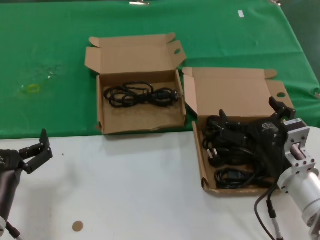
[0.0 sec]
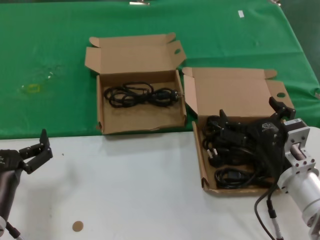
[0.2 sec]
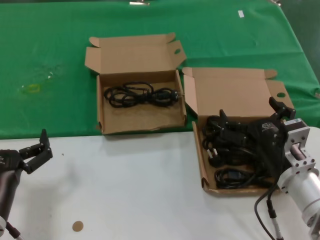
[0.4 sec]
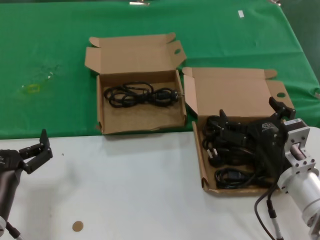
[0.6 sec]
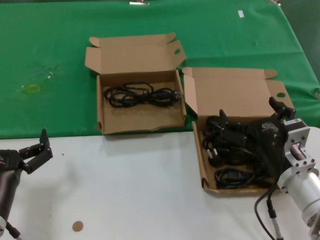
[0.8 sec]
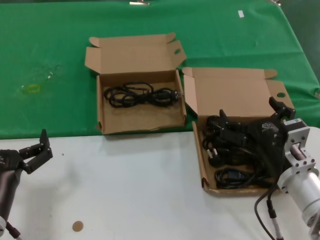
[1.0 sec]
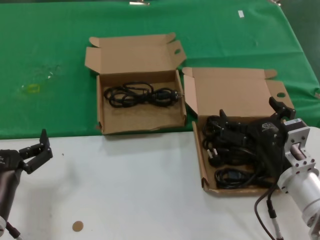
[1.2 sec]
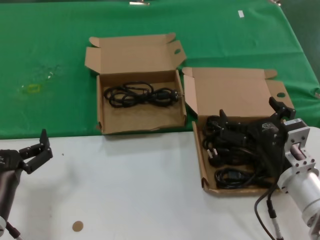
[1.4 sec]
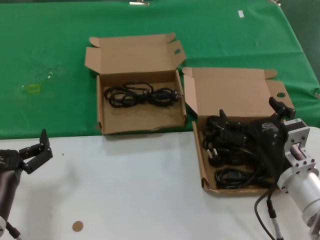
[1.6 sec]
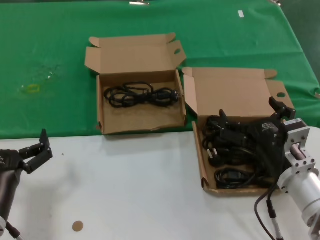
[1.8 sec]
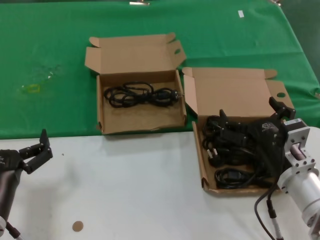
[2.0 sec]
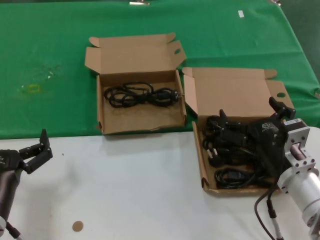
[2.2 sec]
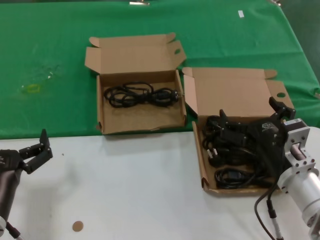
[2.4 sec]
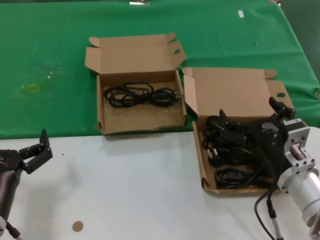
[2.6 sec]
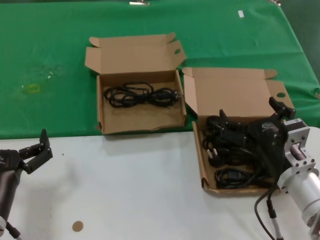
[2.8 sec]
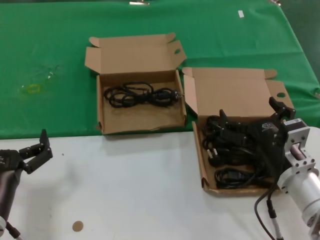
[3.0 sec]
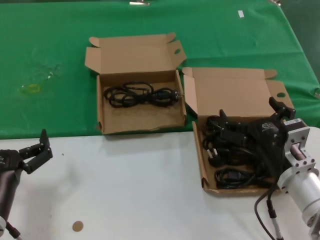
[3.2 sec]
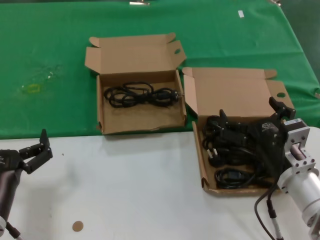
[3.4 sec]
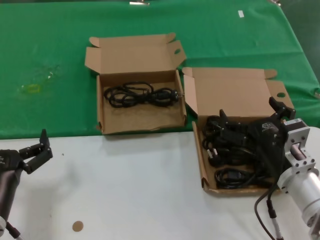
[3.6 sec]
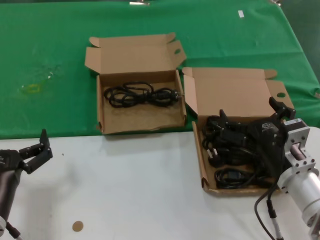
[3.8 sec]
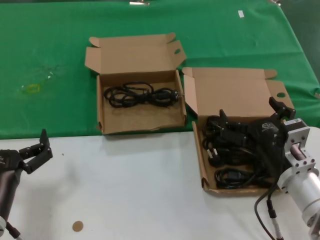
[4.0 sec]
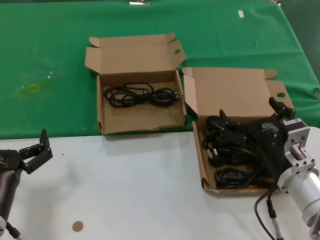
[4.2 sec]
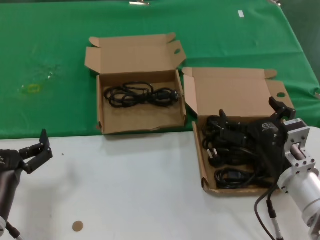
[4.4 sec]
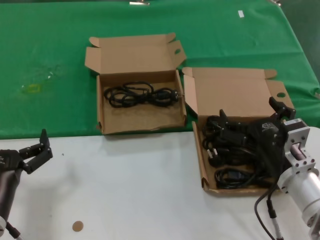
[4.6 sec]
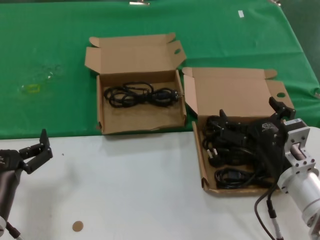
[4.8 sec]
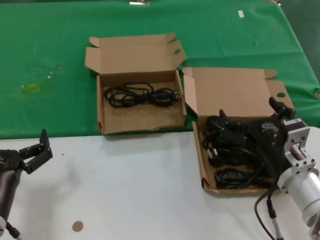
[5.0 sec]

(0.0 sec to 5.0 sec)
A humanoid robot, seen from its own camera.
Task of the whole recording: take the parts from the box containing them and put them into an empty box.
0.0 sec - 5.0 sec: The two hands keep their place.

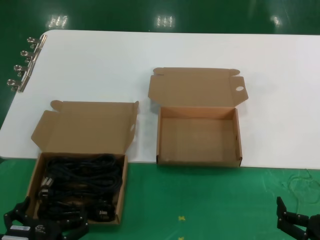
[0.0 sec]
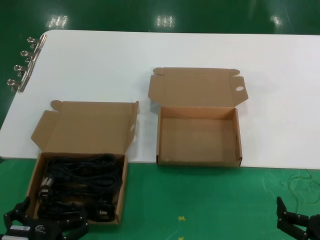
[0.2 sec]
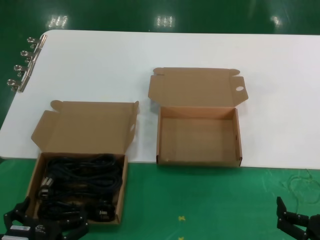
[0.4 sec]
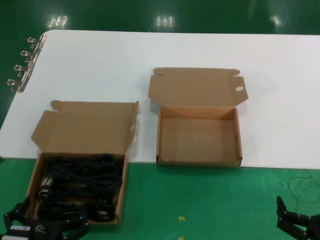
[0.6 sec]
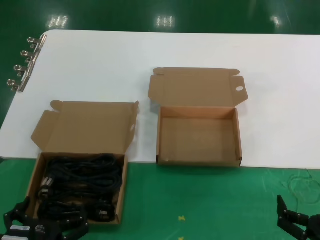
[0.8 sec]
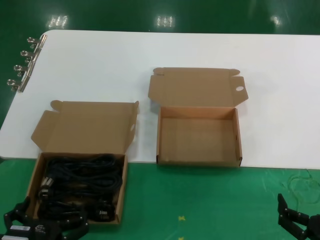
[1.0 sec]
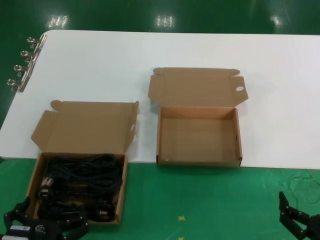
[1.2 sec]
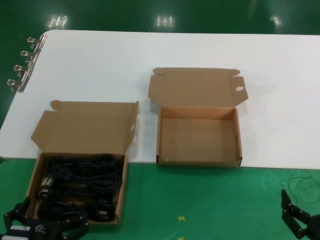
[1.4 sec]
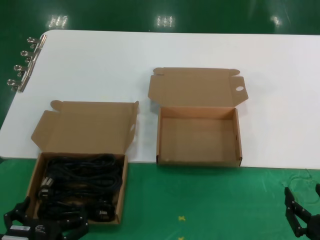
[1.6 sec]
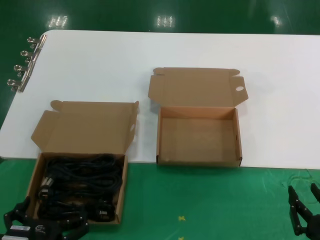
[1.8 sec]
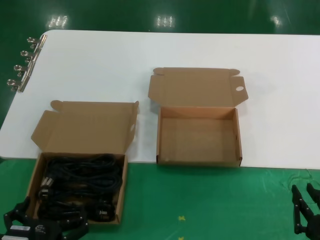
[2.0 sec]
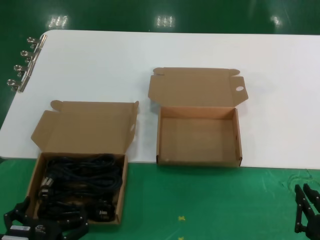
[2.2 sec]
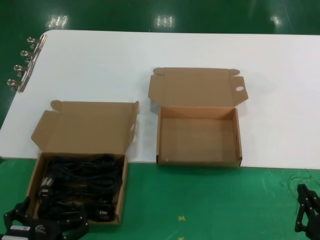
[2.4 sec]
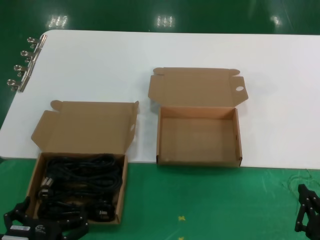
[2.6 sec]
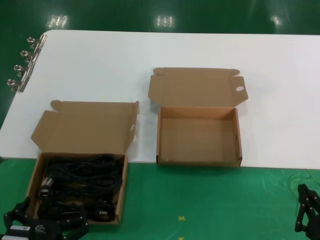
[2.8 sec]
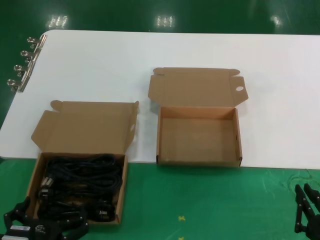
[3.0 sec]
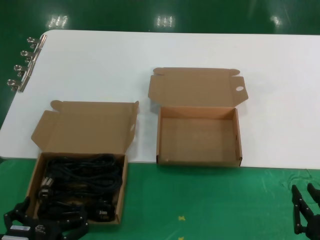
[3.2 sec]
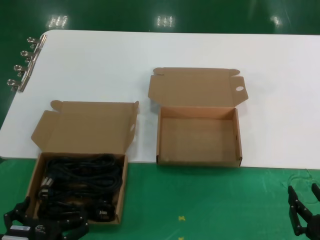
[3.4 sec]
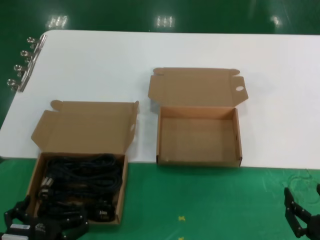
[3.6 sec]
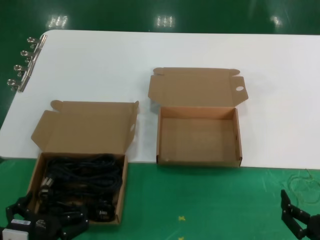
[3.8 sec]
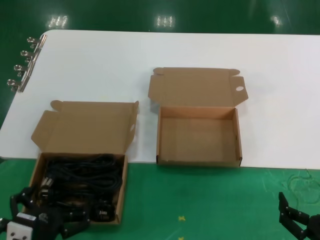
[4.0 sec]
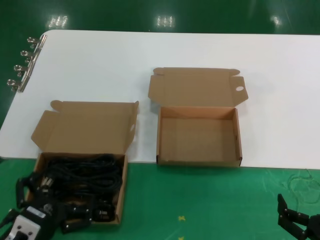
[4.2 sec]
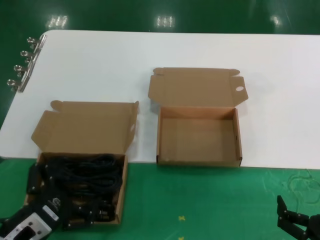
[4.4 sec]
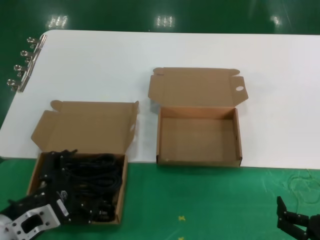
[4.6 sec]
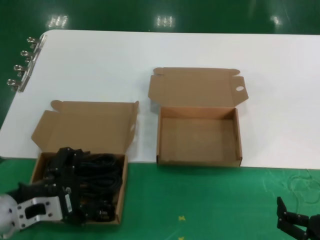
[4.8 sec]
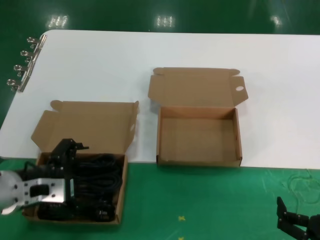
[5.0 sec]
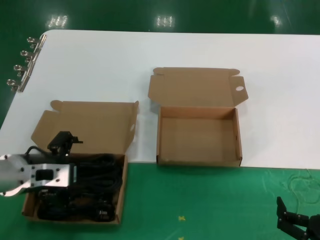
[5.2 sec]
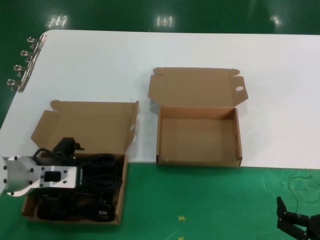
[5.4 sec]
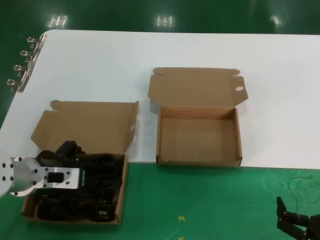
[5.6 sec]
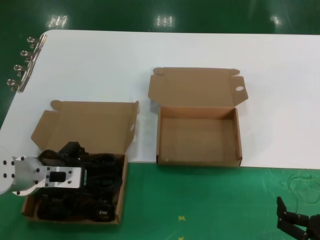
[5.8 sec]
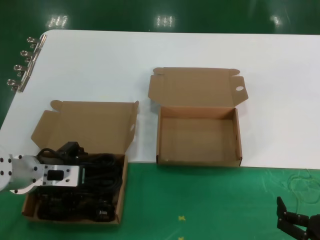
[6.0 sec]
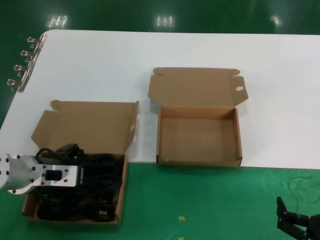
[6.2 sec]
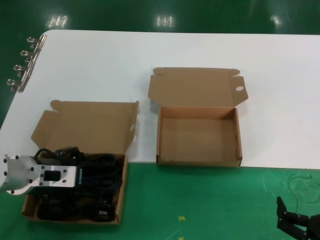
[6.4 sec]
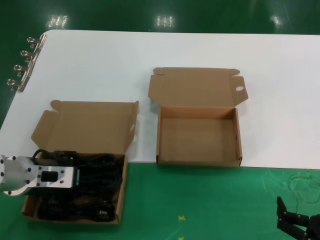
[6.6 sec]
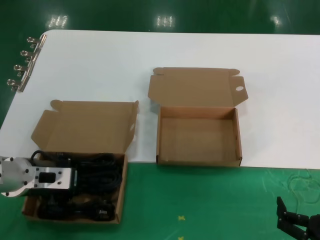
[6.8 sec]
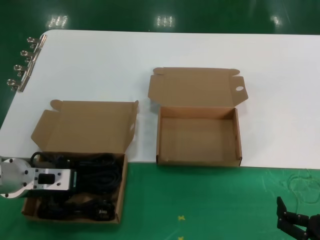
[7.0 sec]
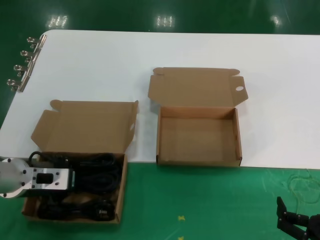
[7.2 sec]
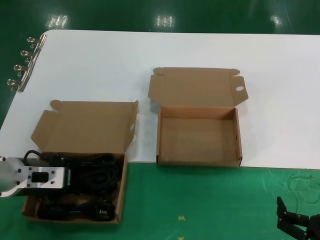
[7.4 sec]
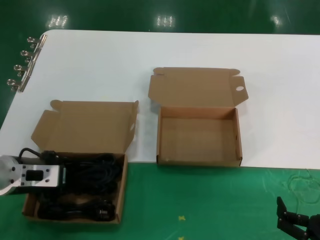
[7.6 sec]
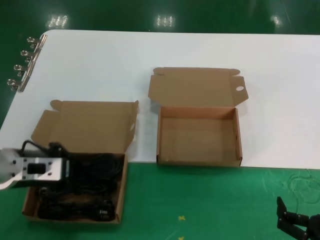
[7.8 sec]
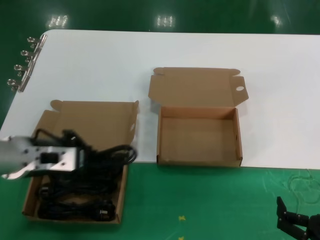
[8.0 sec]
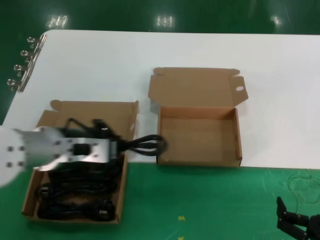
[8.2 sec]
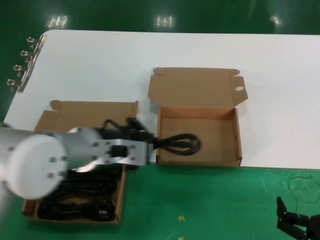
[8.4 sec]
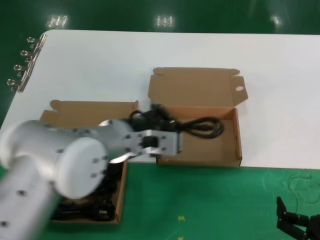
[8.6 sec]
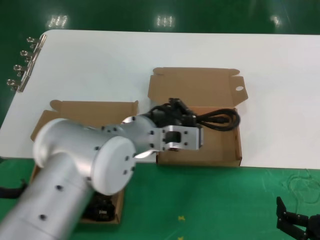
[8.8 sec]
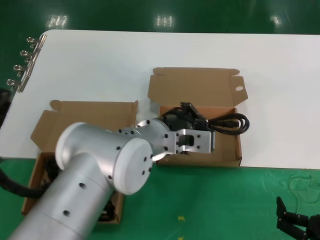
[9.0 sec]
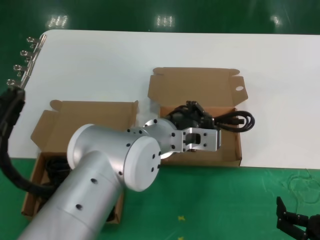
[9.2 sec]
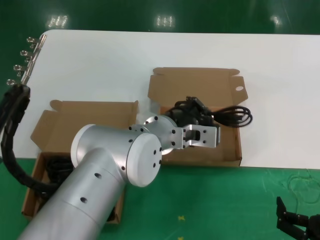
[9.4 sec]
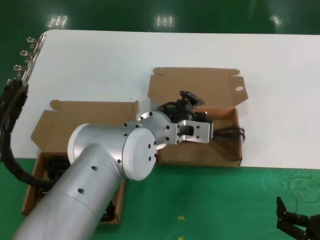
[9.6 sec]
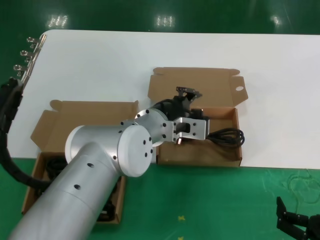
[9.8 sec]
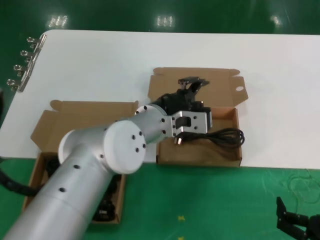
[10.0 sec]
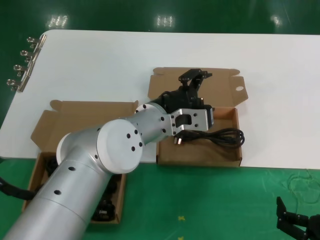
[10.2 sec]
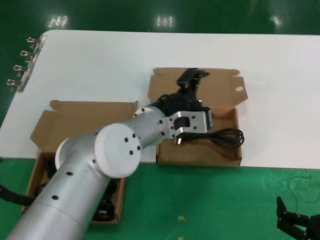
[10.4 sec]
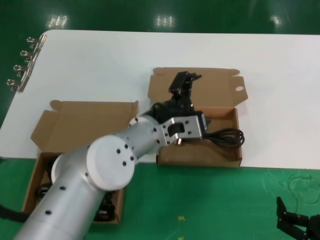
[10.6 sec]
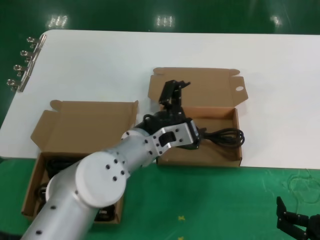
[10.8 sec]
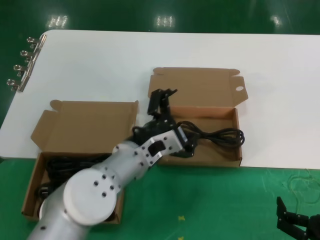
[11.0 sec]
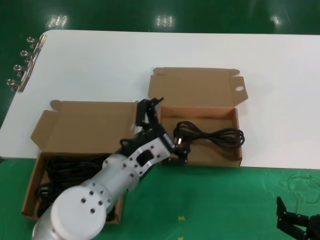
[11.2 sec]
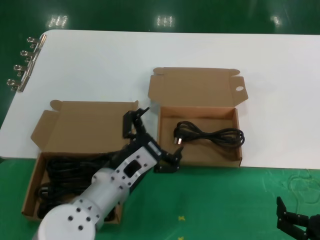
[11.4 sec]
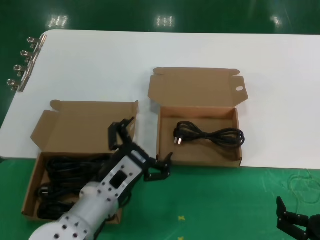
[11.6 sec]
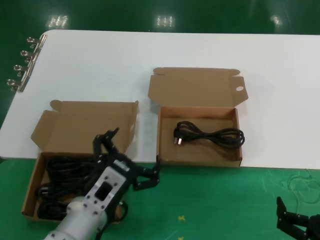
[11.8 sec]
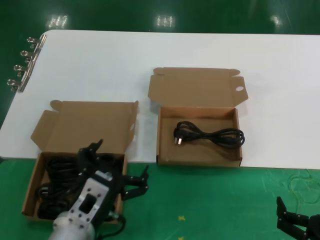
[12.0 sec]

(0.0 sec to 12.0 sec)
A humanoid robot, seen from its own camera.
Task of the whole recording: take the parts from the box containing them and put them into an empty box.
Step, 0.0 sec - 7.0 sec: Grasp the data cable.
Step, 7.2 sec - 10.0 sec: Place the data cable in the another box.
0.0 sec - 3.0 sec: The two hands keep their place.
3.0 sec - 4.4 sec: The left hand shifts by roughly 10 cm.
4.4 sec - 6.0 sec: The left hand goes roughly 20 cm forward and upward.
6.0 sec - 7.6 sec: The hands move only a little.
7.6 sec - 9.0 sec: The left hand heads to the right, covering about 25 cm.
9.0 sec - 10.4 sec: The hands make only small movements.
10.4 sec - 12.0 sec: The left hand moves downward, to the left and backward, about 20 cm.

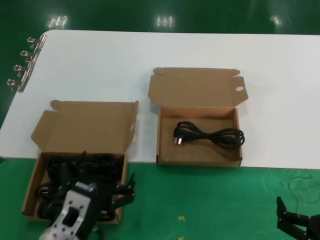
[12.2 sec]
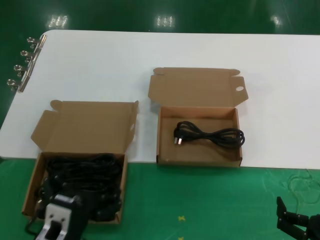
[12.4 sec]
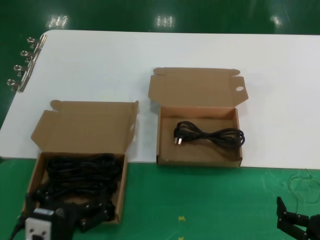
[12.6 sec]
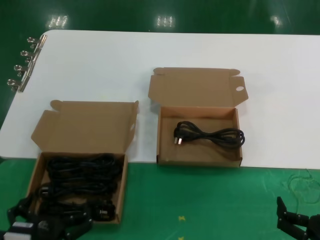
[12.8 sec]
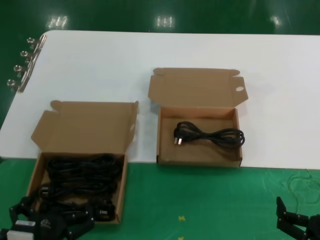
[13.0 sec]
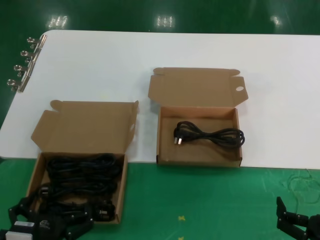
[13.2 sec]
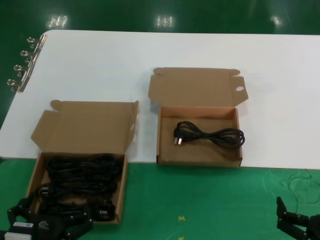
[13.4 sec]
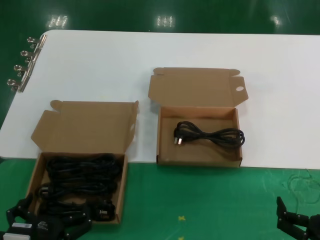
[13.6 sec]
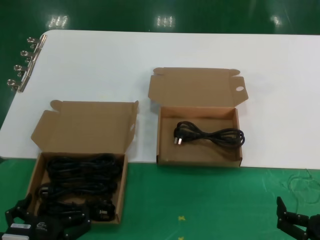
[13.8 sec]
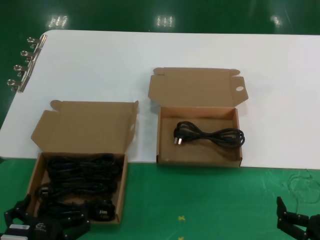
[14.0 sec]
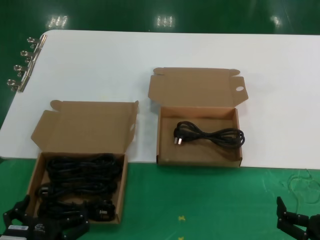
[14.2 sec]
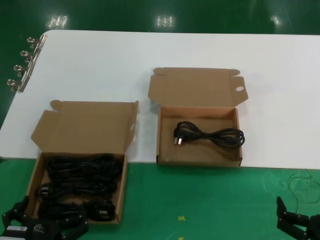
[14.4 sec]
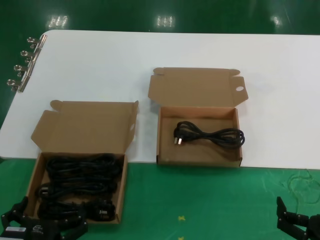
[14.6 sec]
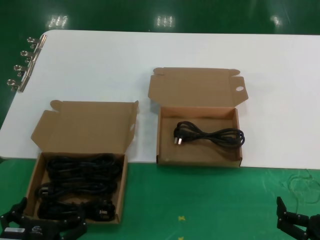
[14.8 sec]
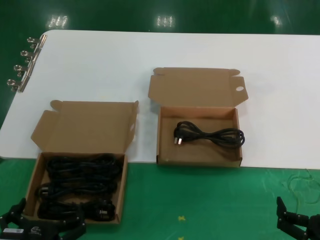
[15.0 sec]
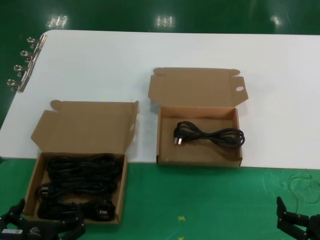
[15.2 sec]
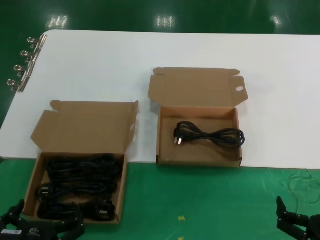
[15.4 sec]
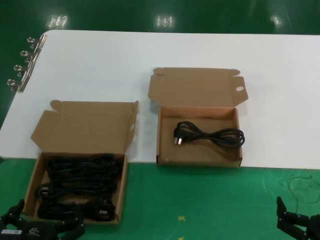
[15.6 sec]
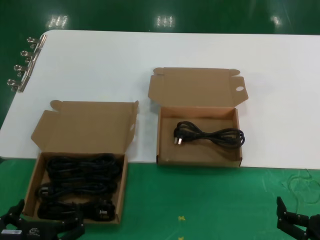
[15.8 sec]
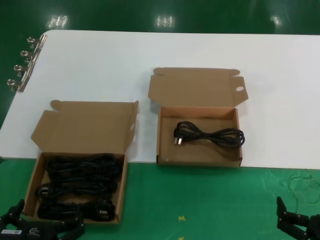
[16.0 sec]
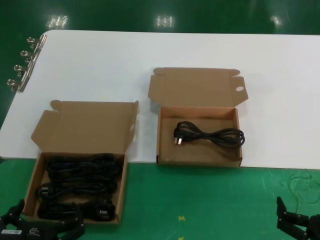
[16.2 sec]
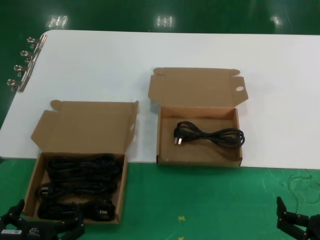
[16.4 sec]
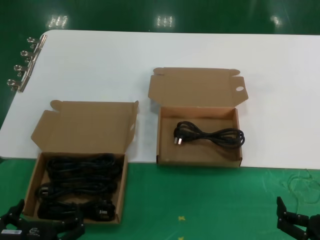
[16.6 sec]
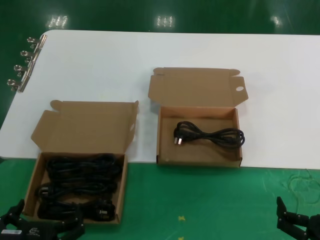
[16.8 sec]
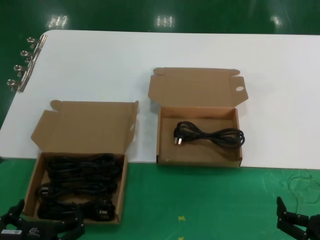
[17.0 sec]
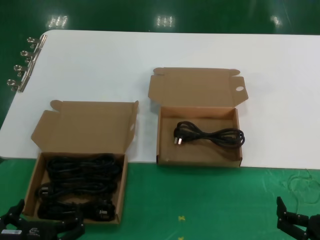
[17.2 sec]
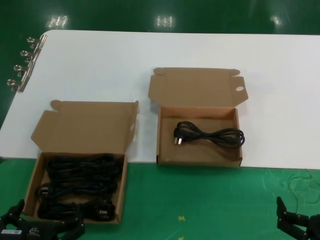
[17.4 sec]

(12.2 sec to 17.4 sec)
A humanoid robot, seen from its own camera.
Task of the whole recording: take the parts from the box containing them and put them into an empty box.
12.2 sec - 14.0 sec: The left hand is displaced backward by roughly 10 cm.
14.0 sec - 17.4 sec: The two hands keep their place.
